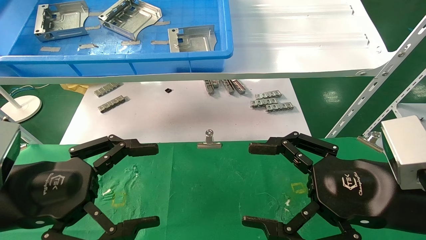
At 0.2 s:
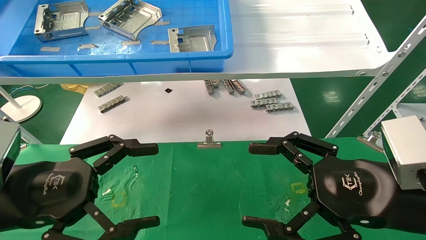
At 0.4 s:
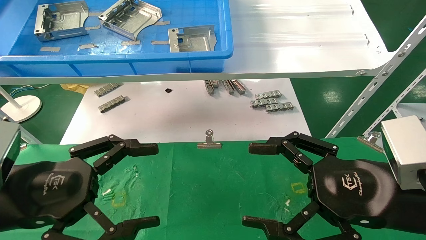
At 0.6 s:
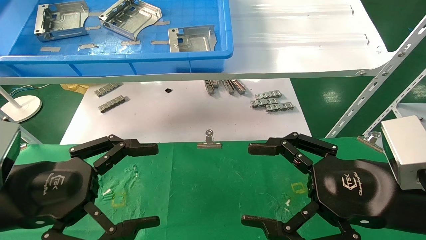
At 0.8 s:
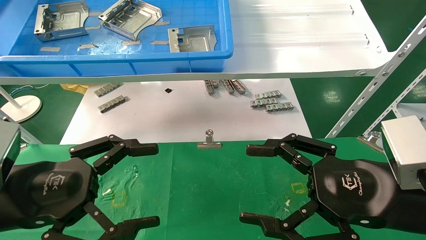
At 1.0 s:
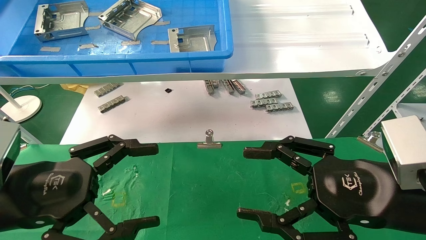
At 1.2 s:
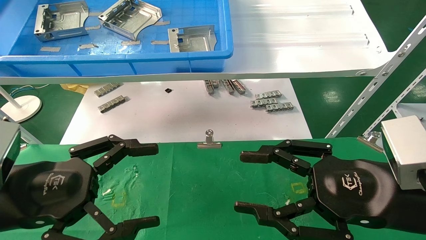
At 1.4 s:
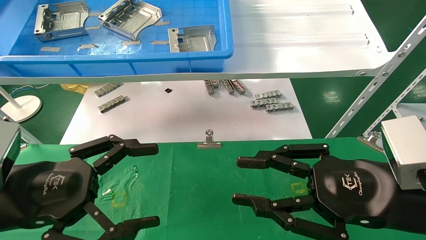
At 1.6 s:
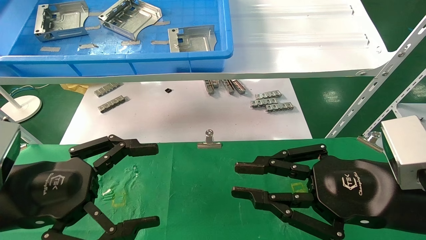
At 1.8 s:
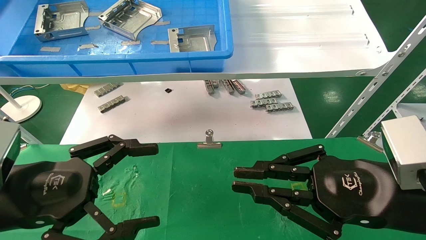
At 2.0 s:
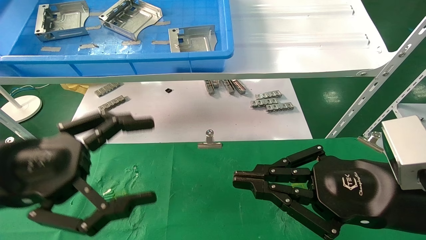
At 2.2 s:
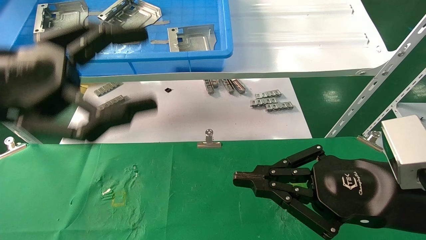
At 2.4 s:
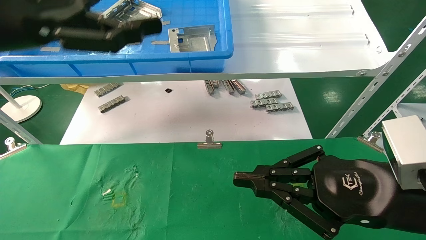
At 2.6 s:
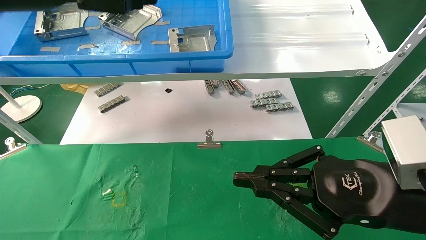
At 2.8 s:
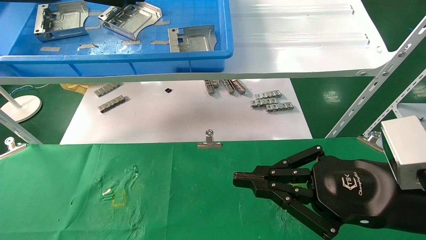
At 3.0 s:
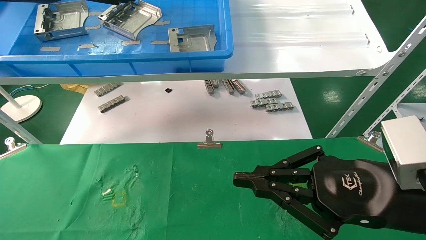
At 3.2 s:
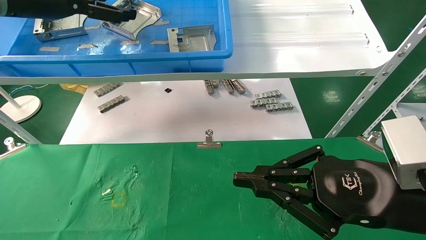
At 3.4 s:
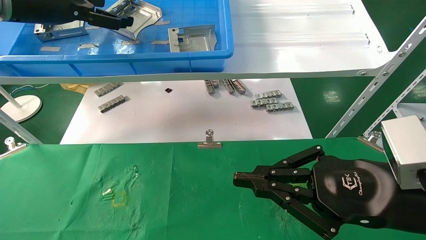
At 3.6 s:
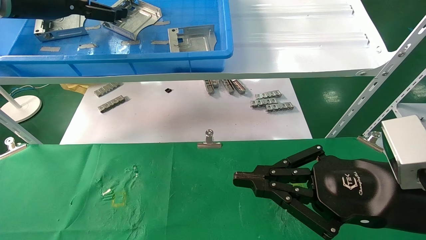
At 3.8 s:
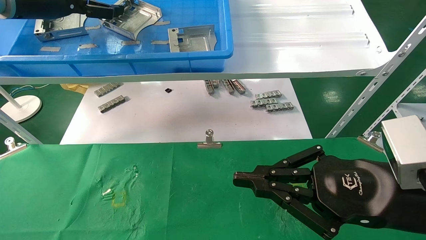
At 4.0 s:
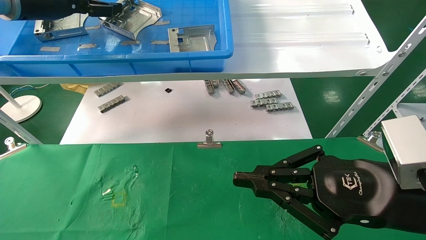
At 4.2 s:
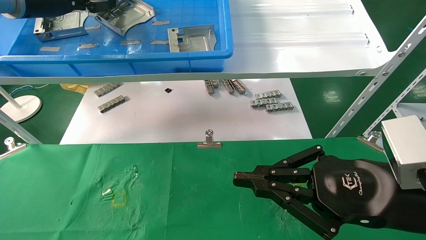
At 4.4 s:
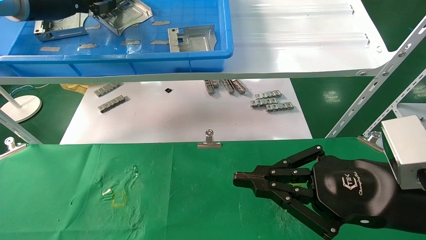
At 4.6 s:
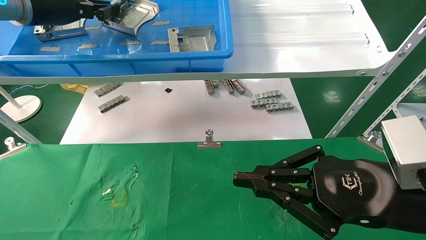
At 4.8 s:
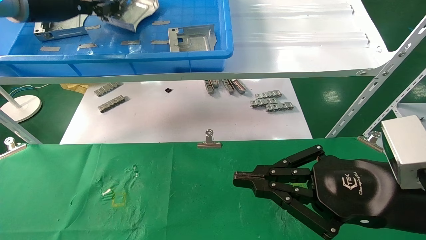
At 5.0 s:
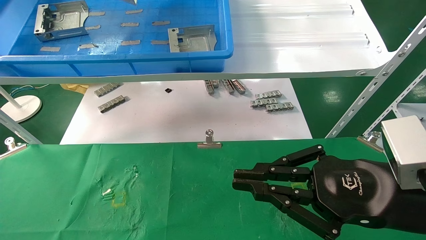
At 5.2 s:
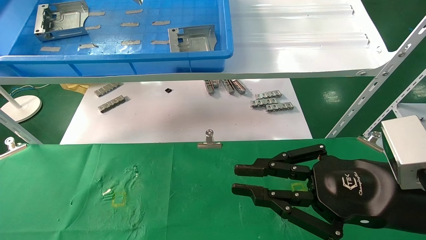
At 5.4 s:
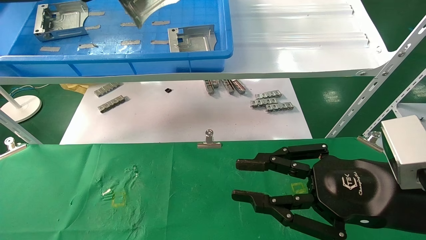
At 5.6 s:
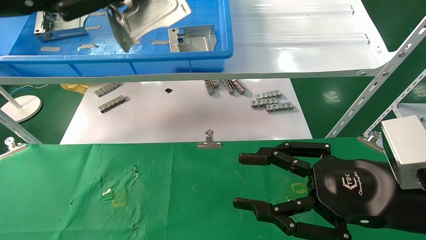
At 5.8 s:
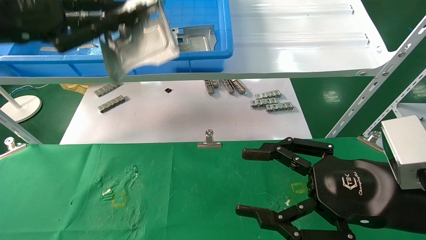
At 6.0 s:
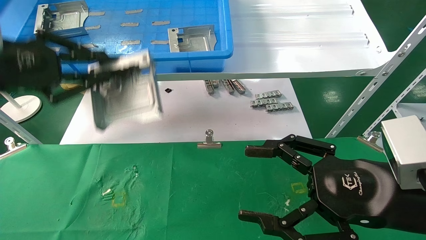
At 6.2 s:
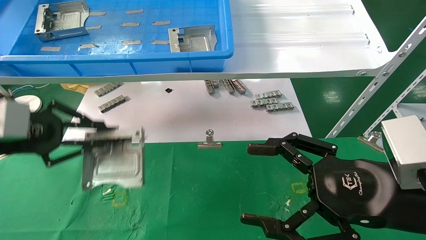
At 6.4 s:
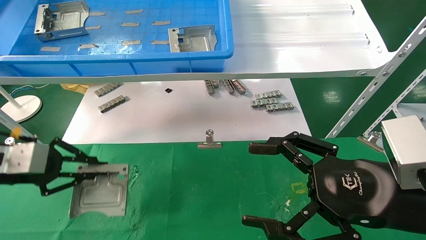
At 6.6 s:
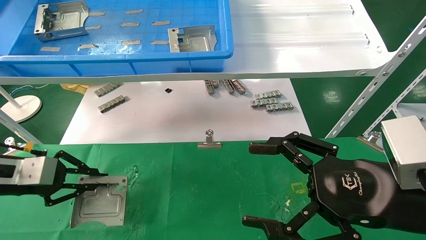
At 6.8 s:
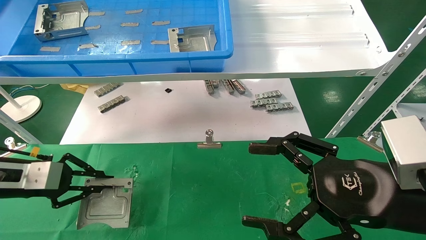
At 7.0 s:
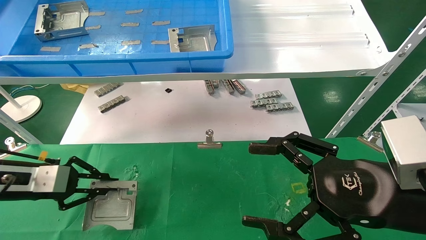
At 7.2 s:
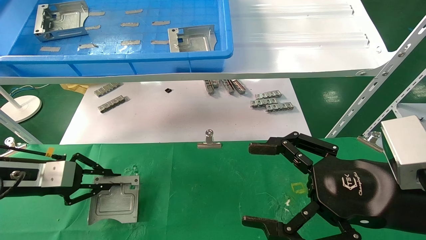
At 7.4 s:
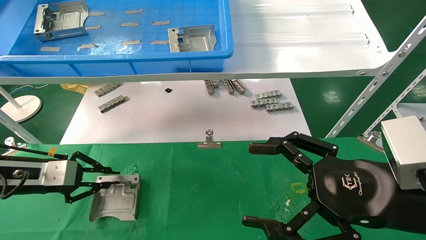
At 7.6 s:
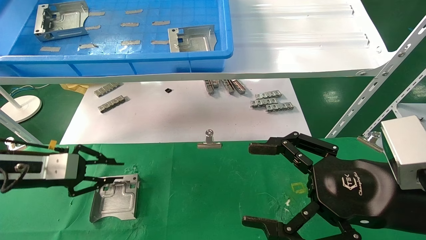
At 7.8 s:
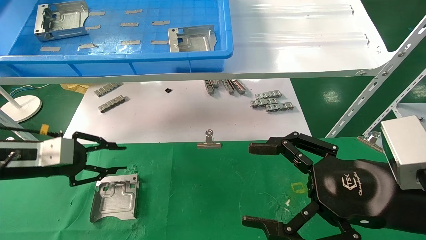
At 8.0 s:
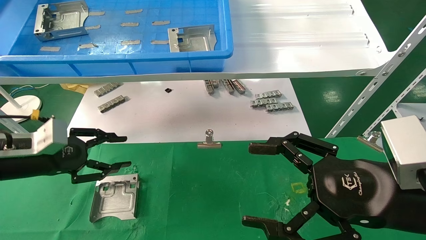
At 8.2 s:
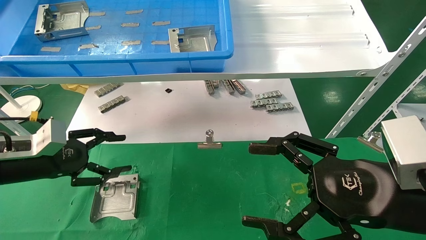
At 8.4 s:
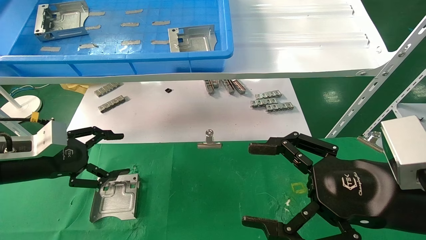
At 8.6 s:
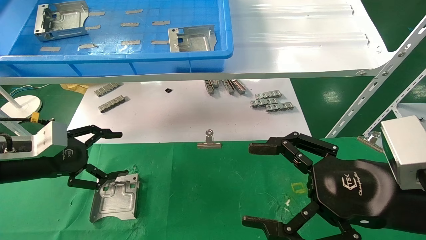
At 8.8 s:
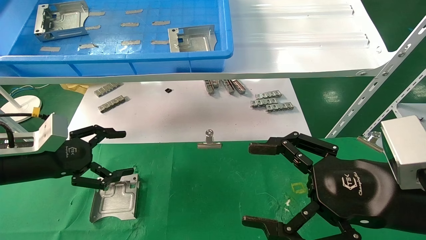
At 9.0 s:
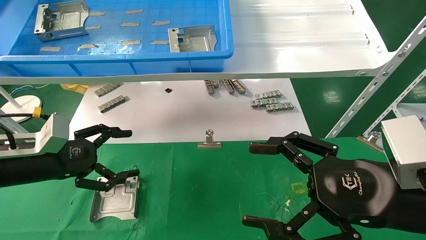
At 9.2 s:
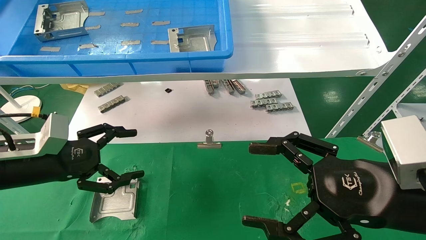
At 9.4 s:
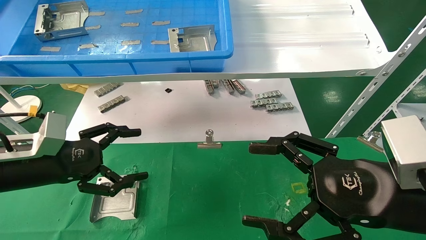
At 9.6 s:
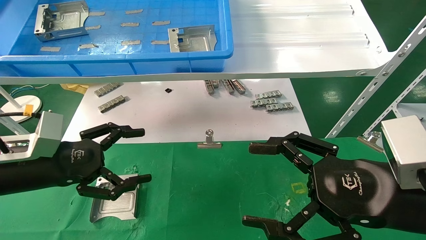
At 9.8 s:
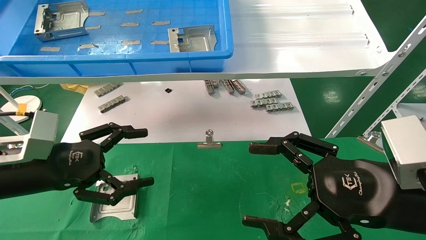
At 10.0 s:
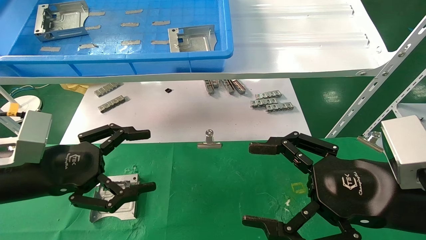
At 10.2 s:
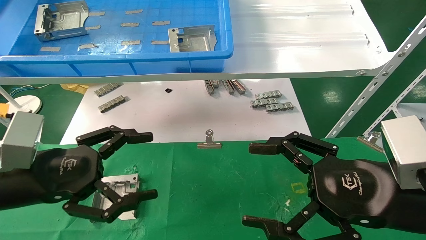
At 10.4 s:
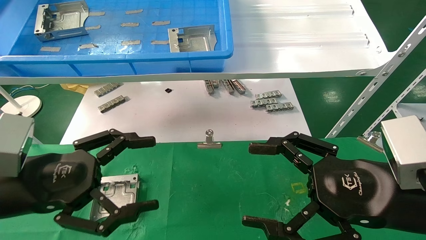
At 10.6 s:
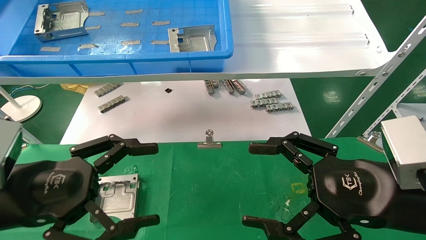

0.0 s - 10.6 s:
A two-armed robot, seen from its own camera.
Task of the whole recording: use the mechanical arm to pick up the parts and place them on the table.
Step, 2.2 s - 4.6 s: Pick up the hard drive bracket from the feeding area.
Step, 4.8 s - 7.6 s: Place the hard drive bracket into the box.
0.0 s - 1.6 s: The right gripper closes its fingers.
1.6 s - 3.0 s: The left gripper goes some 30 cm upward and forward. The right gripper closes up.
3.0 s - 4.6 s: The left gripper heads forward, covering about 5 cm, and closes.
4.6 s - 6.0 s: The left gripper travels backward and downward by approximately 20 cm; the right gripper opens up.
6.0 s - 7.6 s: The left gripper goes roughly 15 cm downward.
7.6 s - 9.0 s: The left gripper opens up.
9.0 s - 10.6 s: The left gripper goes roughly 15 cm backward and to the right.
